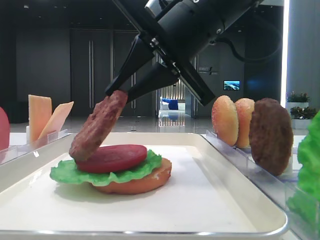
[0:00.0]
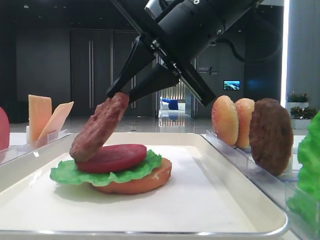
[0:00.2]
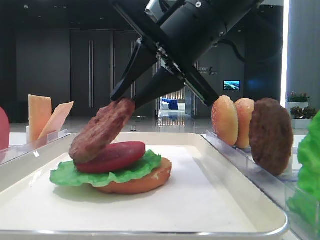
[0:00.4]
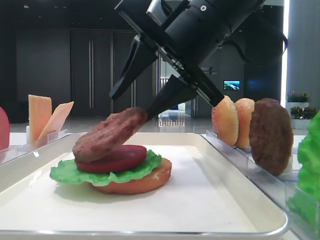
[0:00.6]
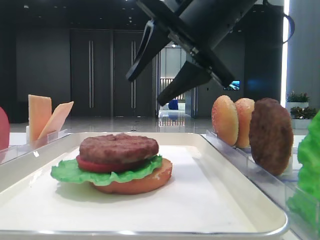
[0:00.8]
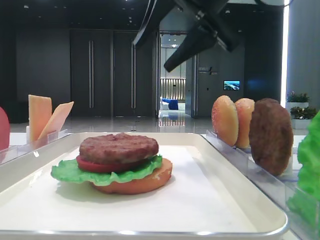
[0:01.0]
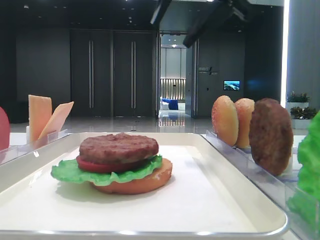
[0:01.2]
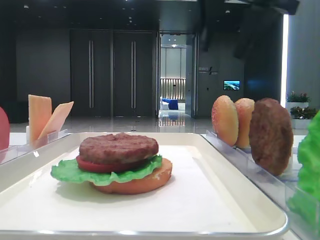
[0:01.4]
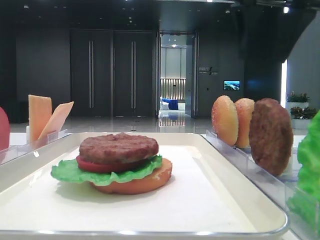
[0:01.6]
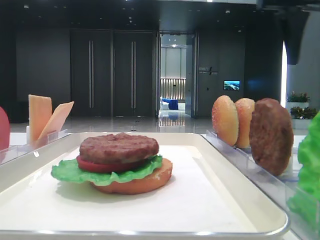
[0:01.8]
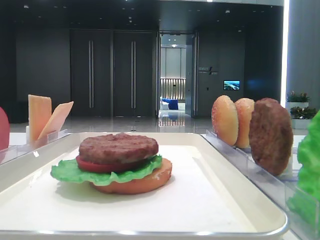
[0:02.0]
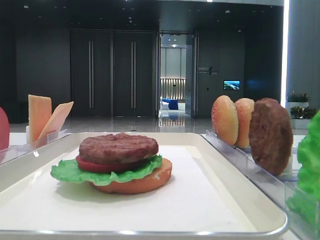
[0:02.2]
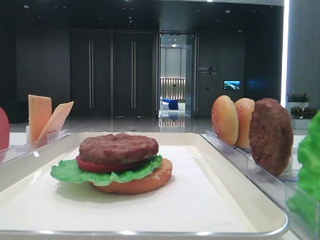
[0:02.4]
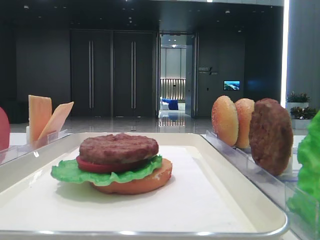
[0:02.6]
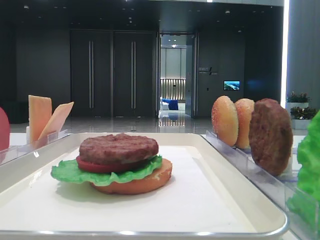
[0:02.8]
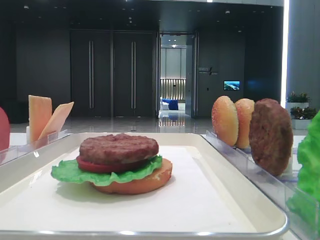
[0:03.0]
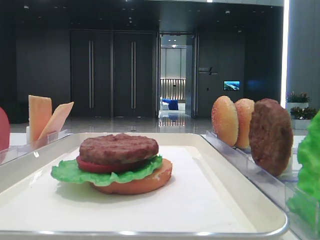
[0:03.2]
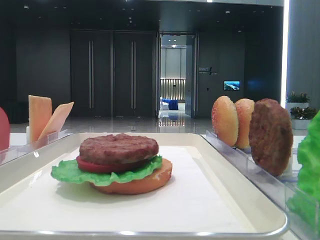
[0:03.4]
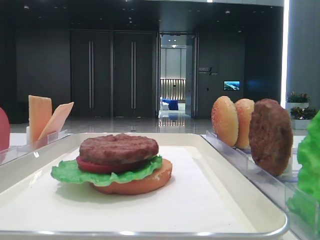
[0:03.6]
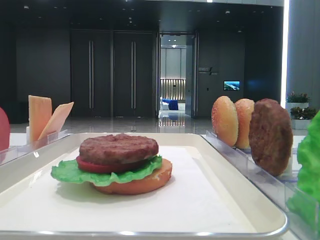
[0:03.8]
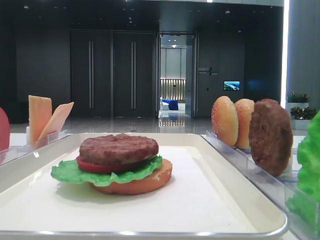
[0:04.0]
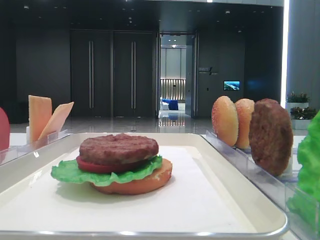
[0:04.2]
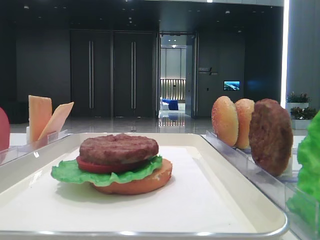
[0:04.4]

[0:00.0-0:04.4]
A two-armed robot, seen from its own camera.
0:00.0 to 0:01.4: The right gripper moves upward and to the right, about 10 cm, and opens its fingers.
0:01.4 to 0:03.0: The right gripper shifts approximately 30 cm backward and to the right.
